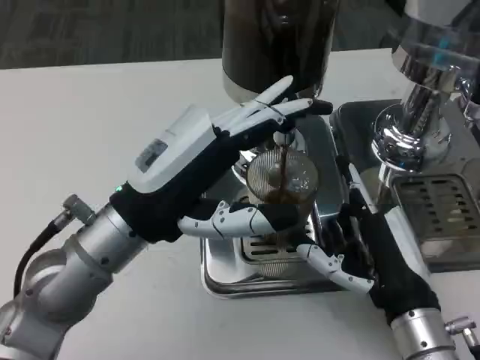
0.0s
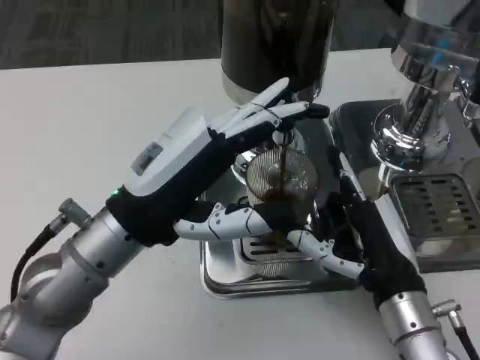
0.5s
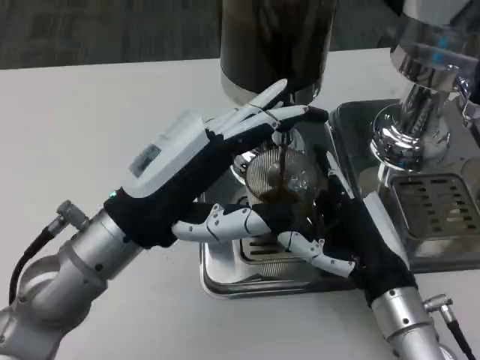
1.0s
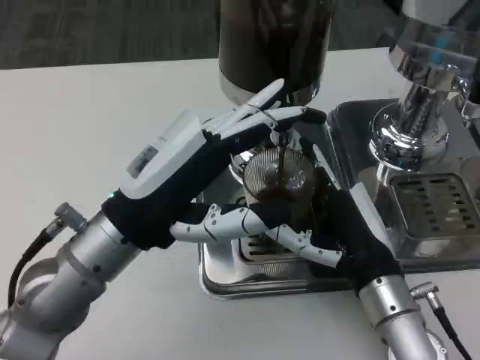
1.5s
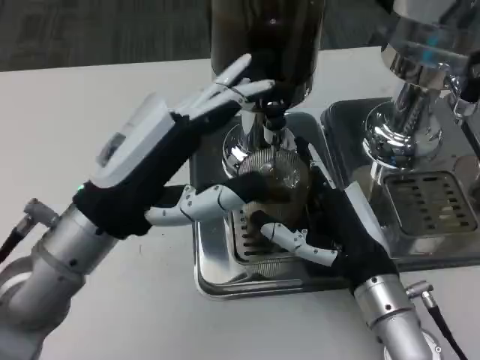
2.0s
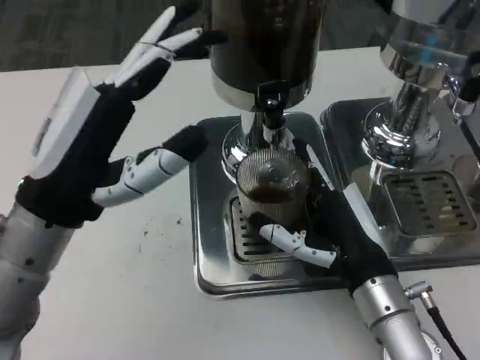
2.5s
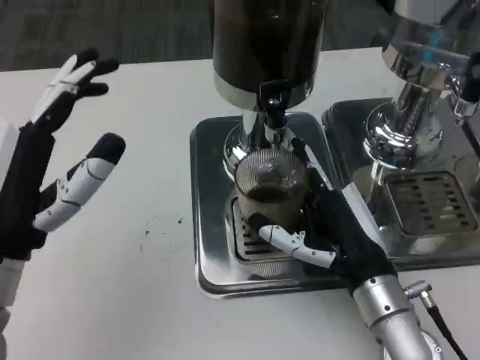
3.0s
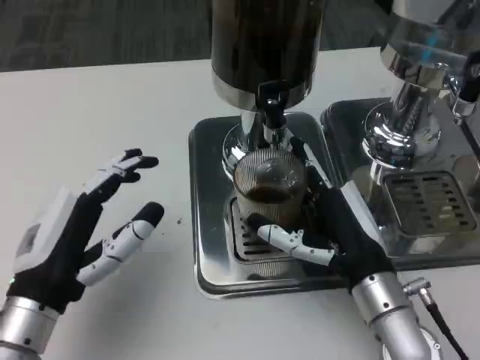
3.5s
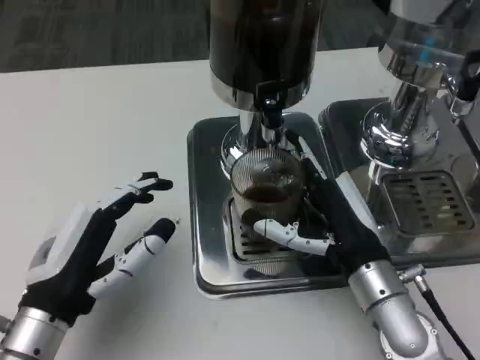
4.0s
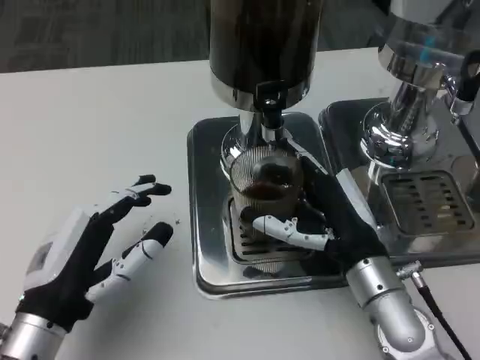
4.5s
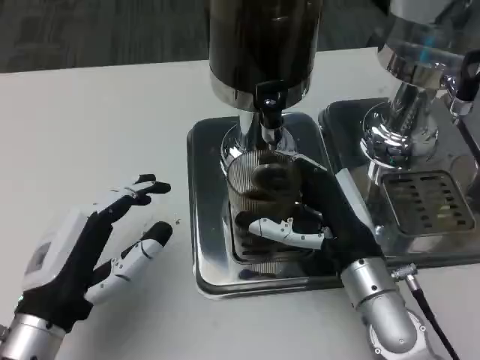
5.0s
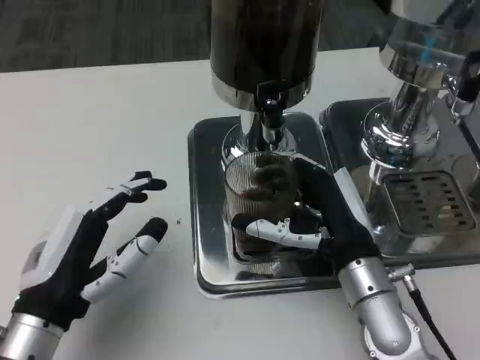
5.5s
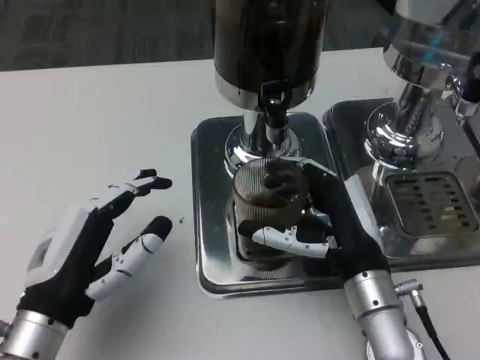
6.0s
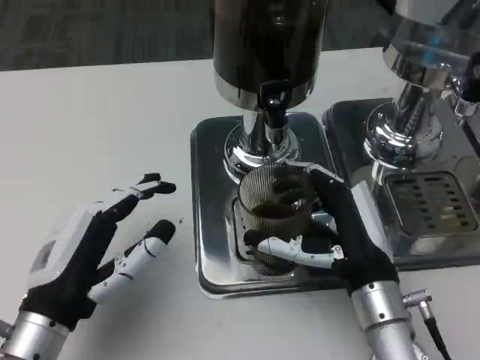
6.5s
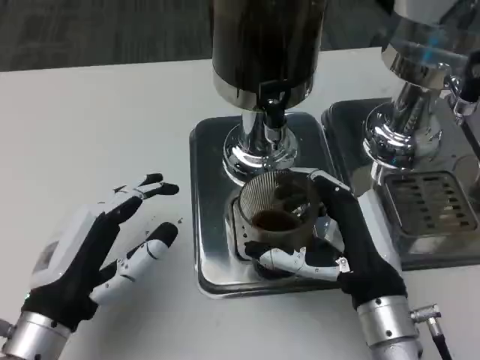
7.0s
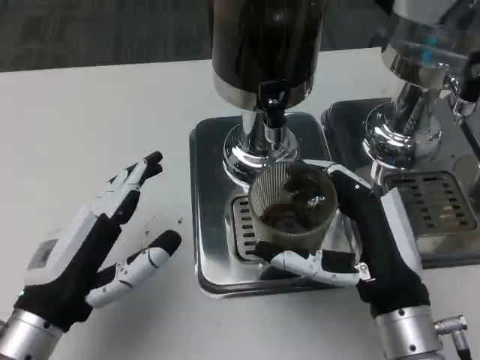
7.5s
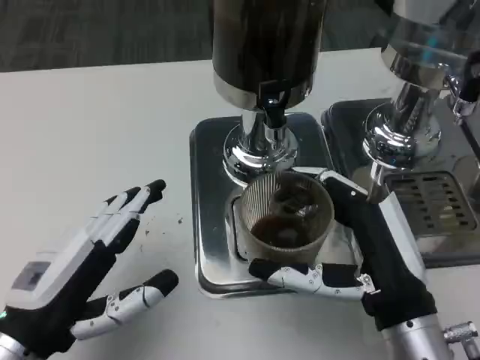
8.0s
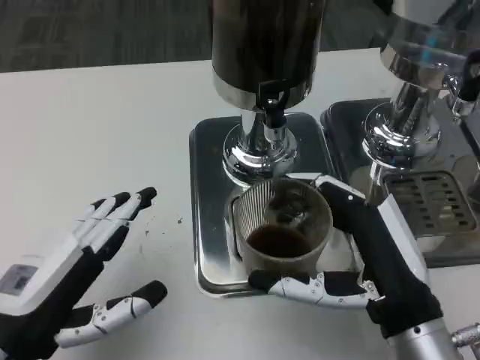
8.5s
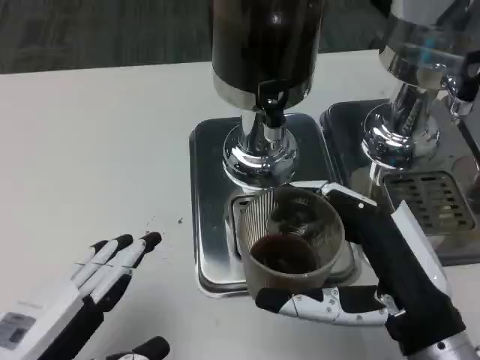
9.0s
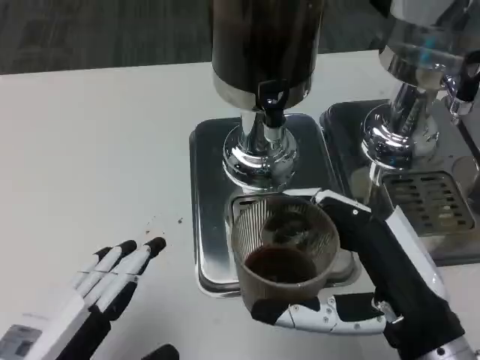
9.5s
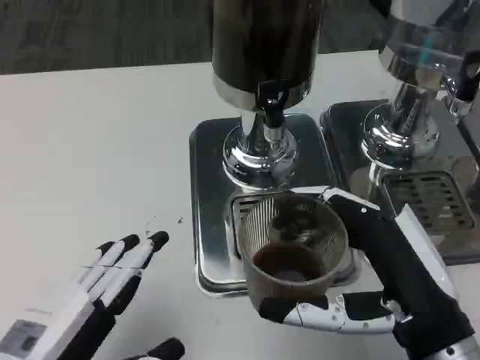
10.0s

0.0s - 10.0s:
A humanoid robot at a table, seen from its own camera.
Task of the whole recording: Grasp the cup under the faucet to collect the drink, then remove the cup.
2.0s - 4.0s: The left hand shifts roughly 10 cm downward and backward.
4.0s - 6.0s: The hands make only small movements.
6.0s - 8.0s: The right hand travels backward by roughly 5 cm.
8.0s - 10.0s: The left hand moves backward, roughly 5 cm. The right hand moves roughly 5 cm.

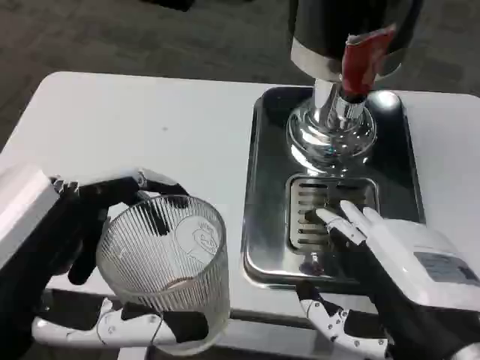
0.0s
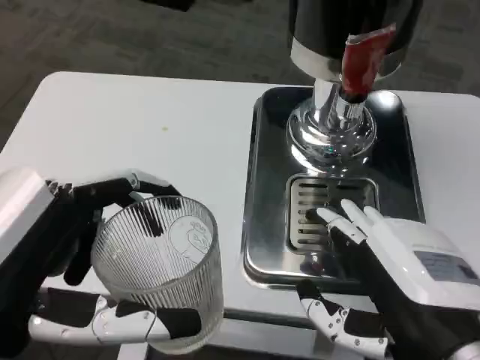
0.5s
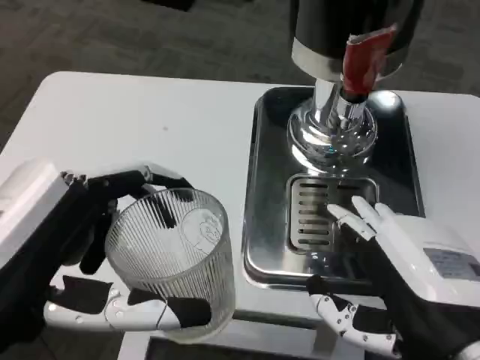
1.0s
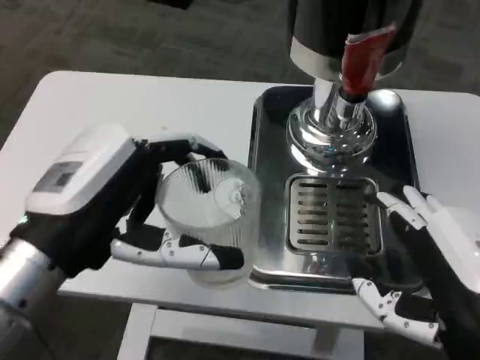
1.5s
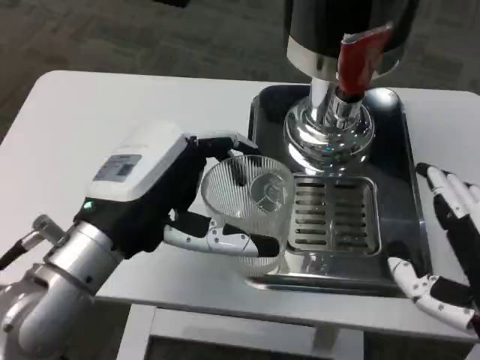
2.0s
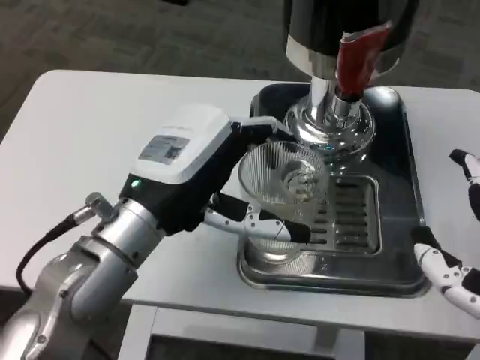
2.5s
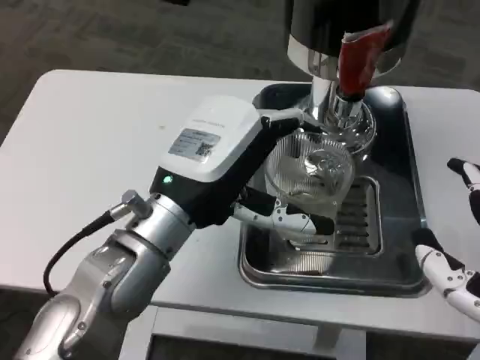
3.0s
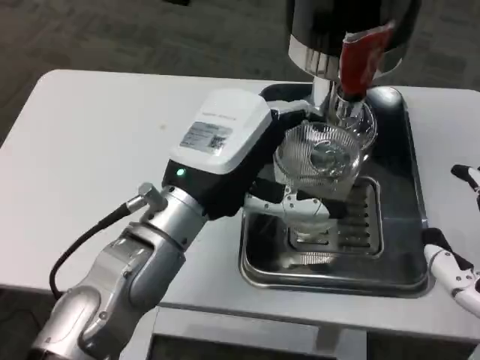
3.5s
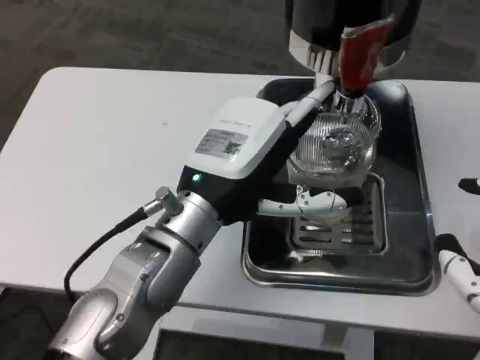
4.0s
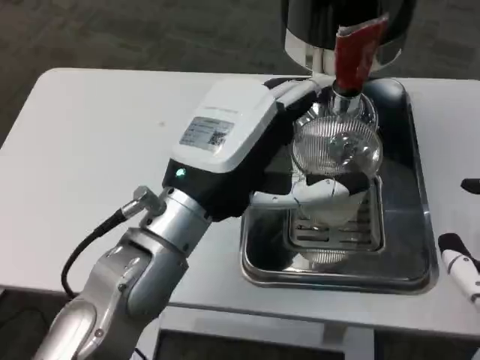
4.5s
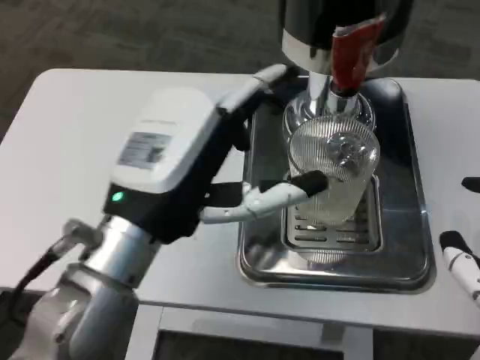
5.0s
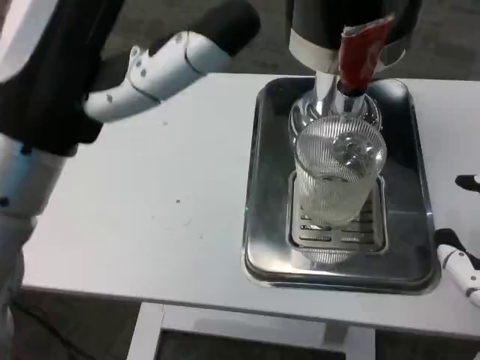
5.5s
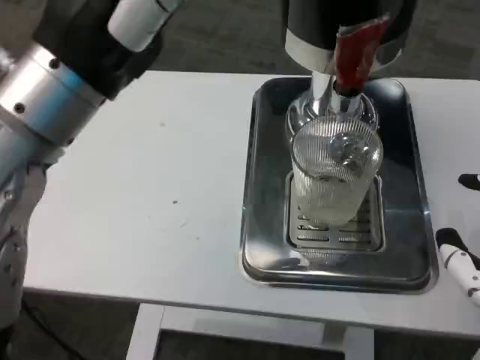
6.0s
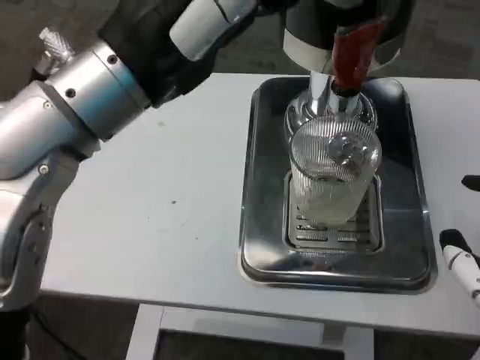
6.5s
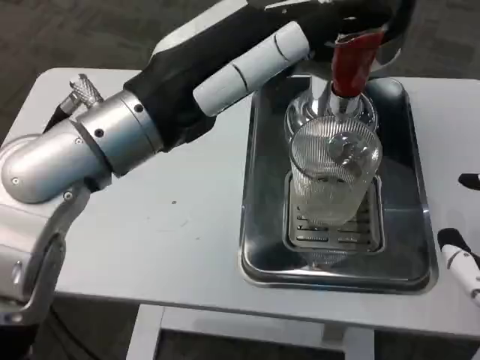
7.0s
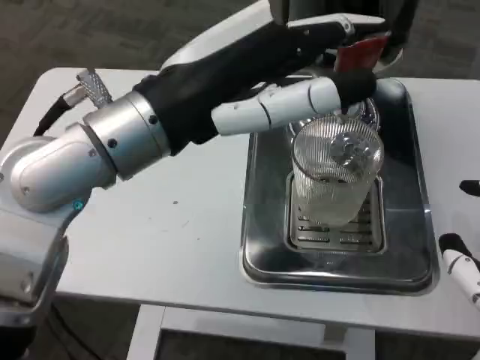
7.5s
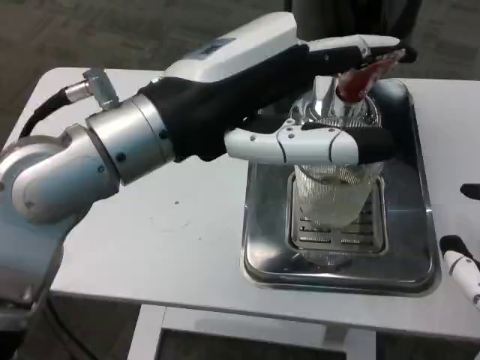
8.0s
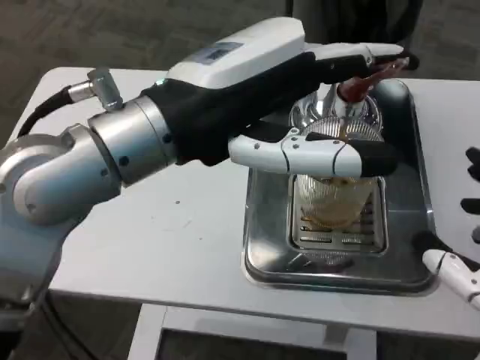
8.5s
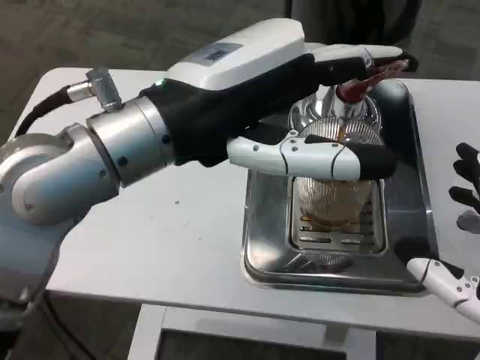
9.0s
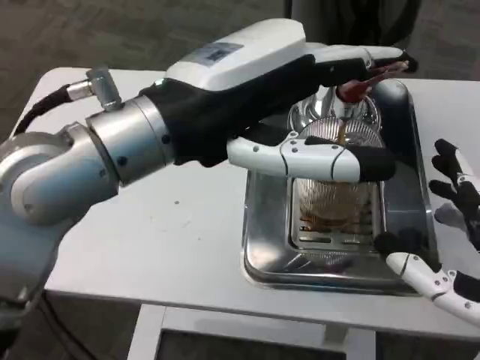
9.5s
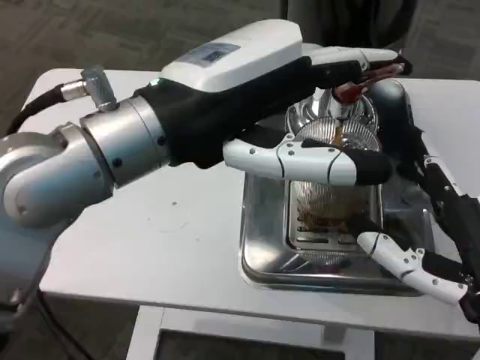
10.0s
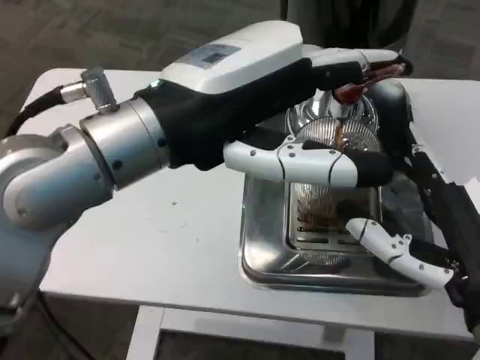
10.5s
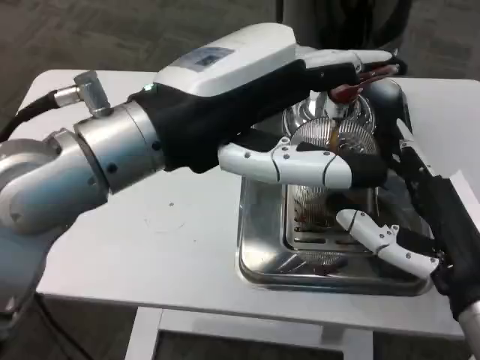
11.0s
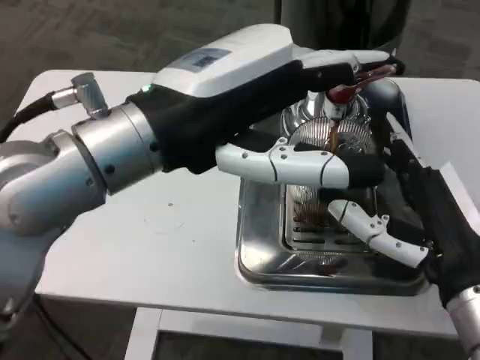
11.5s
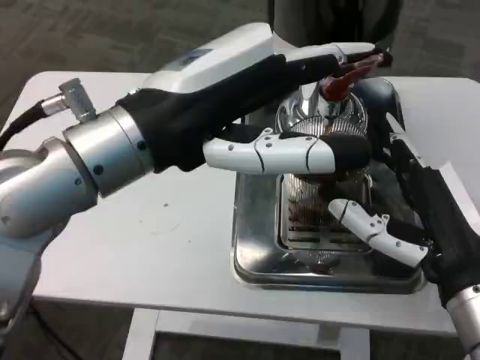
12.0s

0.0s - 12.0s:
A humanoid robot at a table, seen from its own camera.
Task of the whole recording: Grasp the cup under the faucet to collect the drink, then remove the cup.
0.0s - 2.0s: The left hand goes roughly 15 cm forward.
2.0s - 4.0s: The left hand goes roughly 10 cm to the right.
4.0s - 6.0s: The left hand travels upward and to the left by about 15 cm.
8.0s - 10.0s: The right hand goes roughly 5 cm forward.

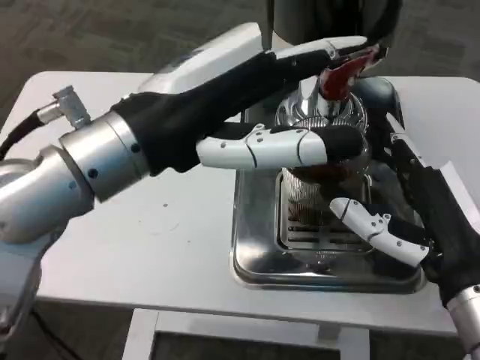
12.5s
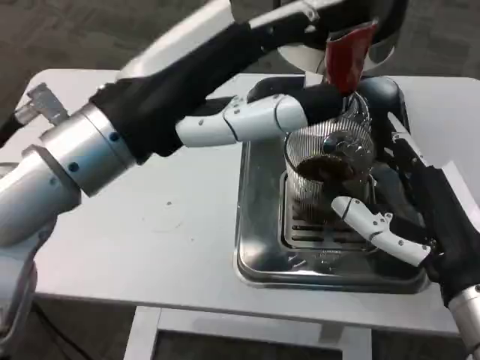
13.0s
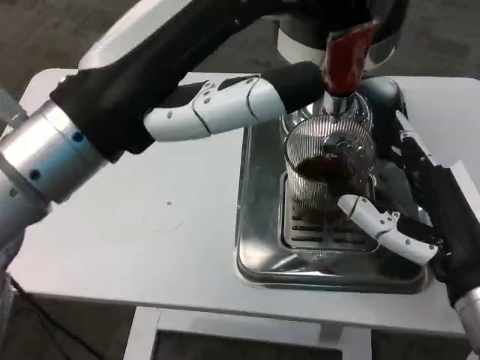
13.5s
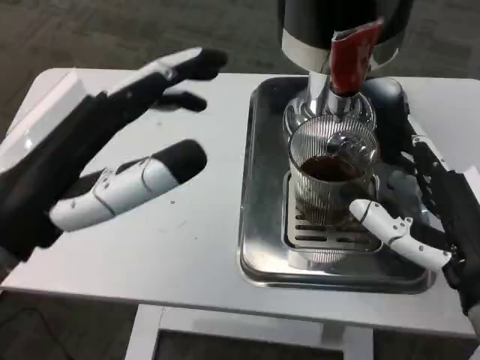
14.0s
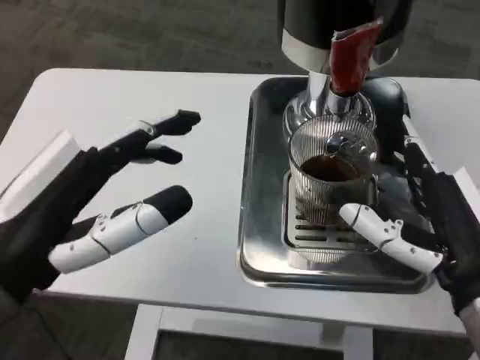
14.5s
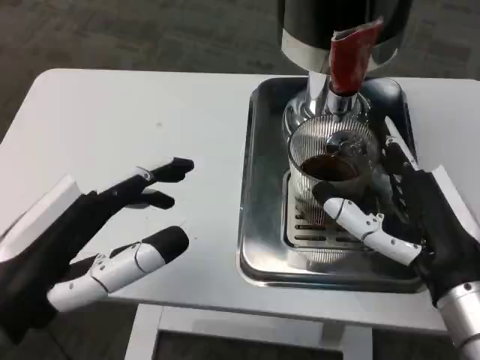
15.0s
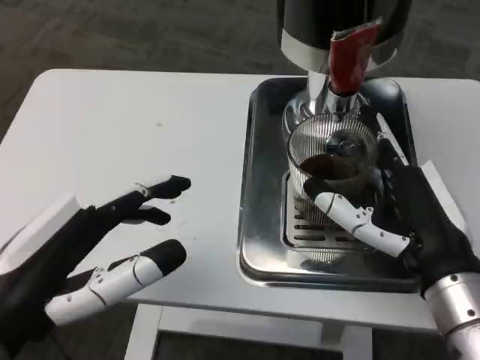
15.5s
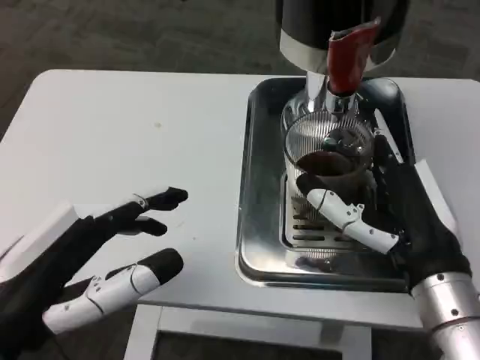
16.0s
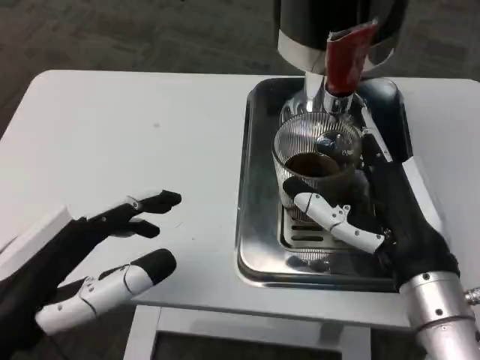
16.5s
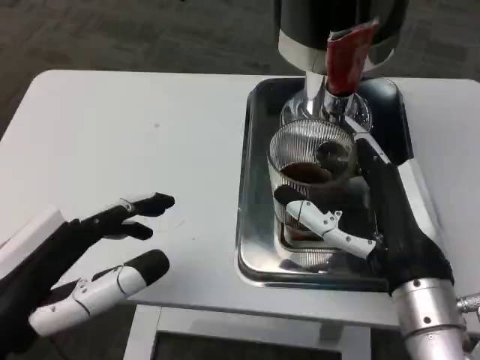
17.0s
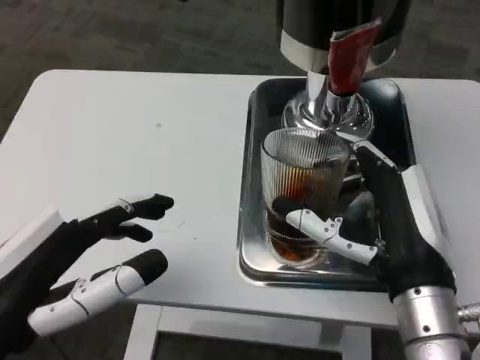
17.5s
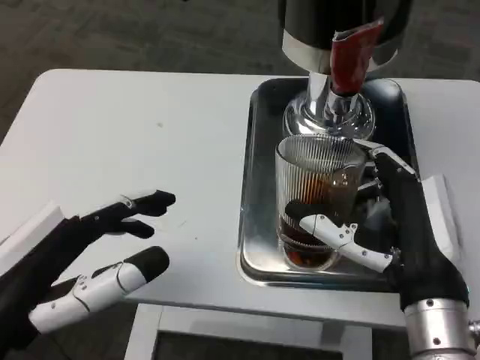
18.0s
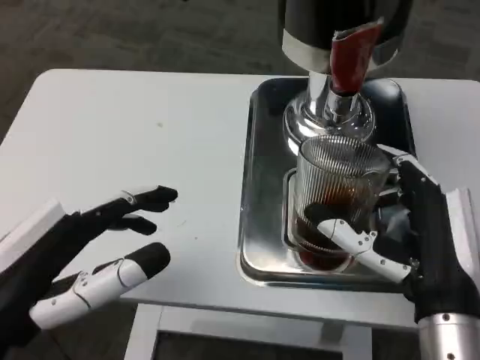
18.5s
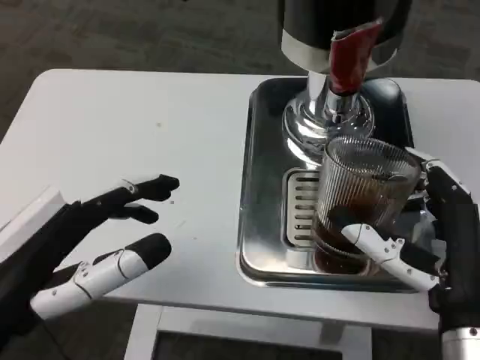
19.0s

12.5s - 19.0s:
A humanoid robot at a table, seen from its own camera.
Task of the whole recording: Grasp the cup under the faucet to collect the drink, then remove the cup.
12.5s - 14.5s: The left hand goes approximately 15 cm downward, to the left and backward.
14.5s - 17.0s: The right hand moves approximately 5 cm.
